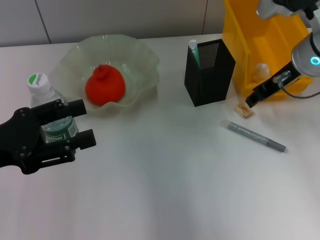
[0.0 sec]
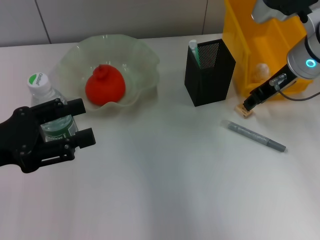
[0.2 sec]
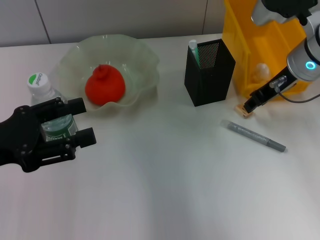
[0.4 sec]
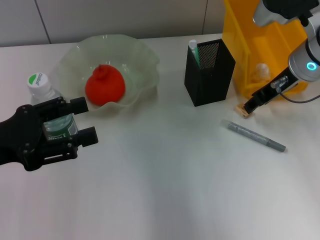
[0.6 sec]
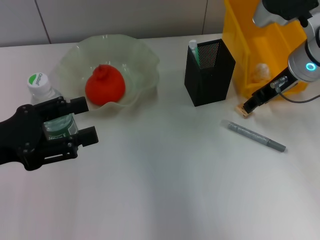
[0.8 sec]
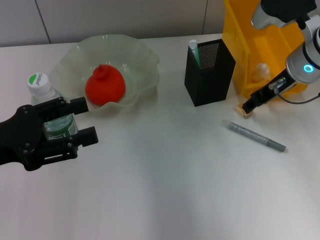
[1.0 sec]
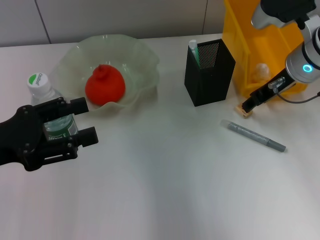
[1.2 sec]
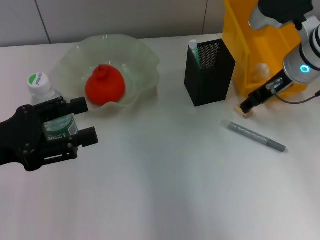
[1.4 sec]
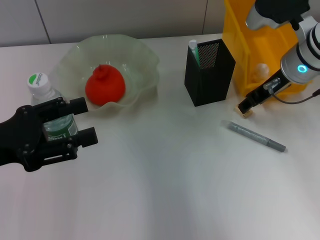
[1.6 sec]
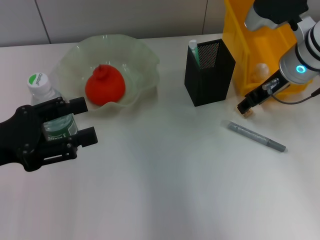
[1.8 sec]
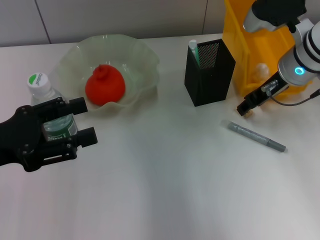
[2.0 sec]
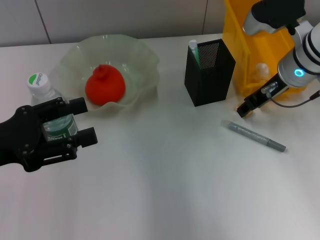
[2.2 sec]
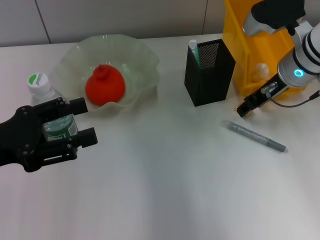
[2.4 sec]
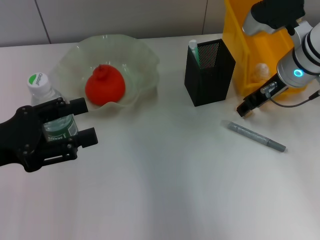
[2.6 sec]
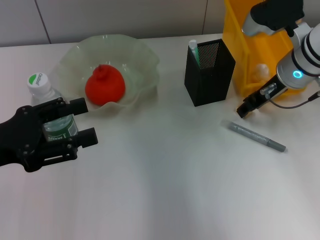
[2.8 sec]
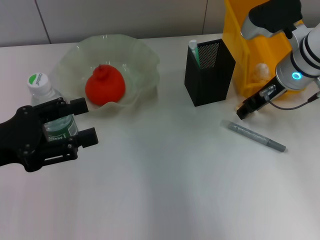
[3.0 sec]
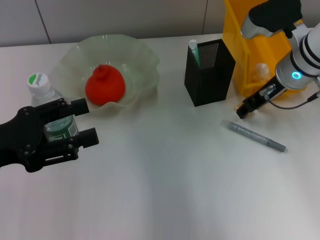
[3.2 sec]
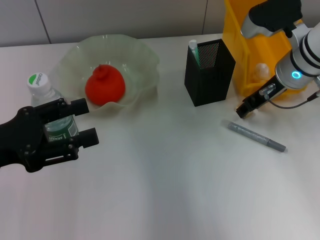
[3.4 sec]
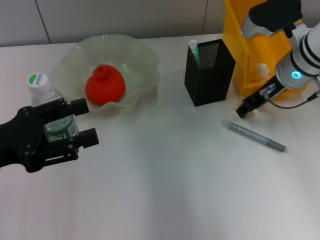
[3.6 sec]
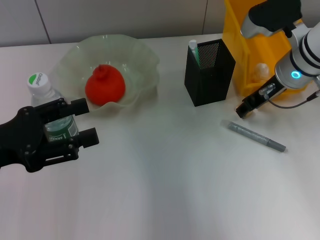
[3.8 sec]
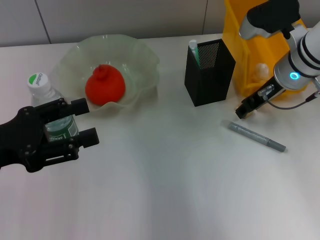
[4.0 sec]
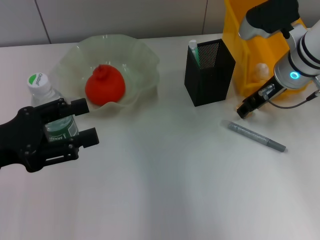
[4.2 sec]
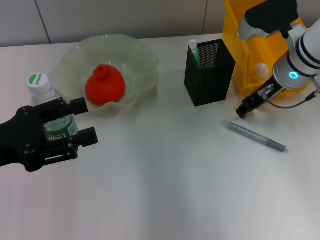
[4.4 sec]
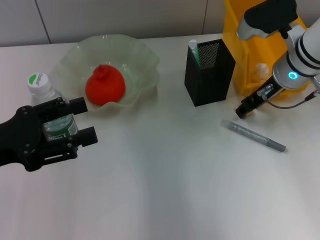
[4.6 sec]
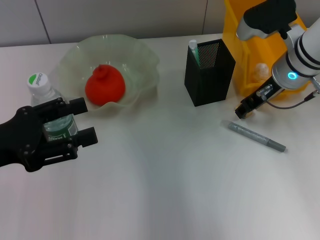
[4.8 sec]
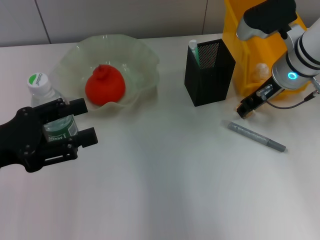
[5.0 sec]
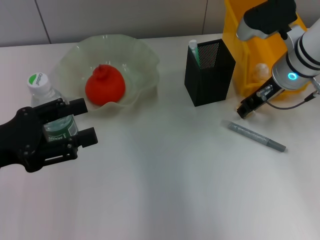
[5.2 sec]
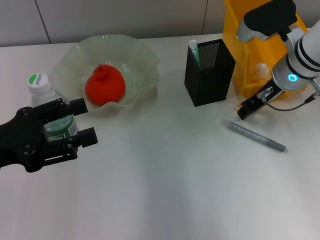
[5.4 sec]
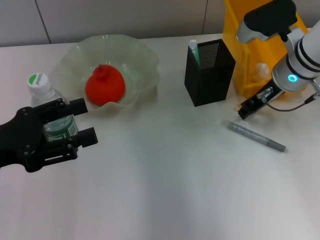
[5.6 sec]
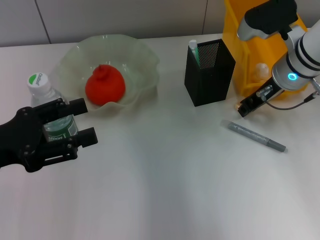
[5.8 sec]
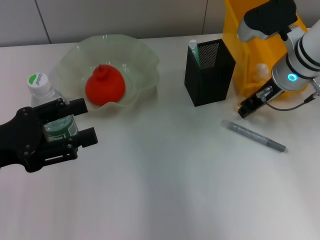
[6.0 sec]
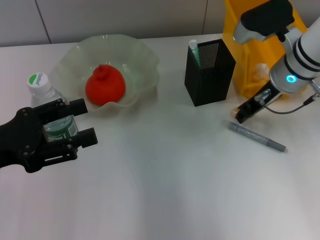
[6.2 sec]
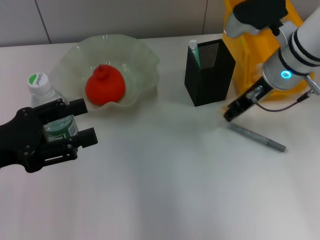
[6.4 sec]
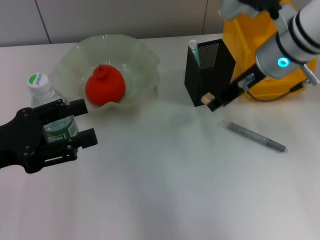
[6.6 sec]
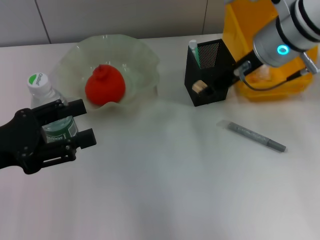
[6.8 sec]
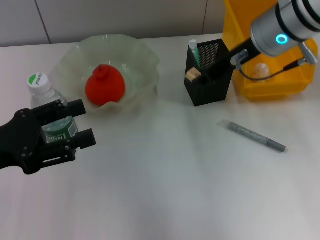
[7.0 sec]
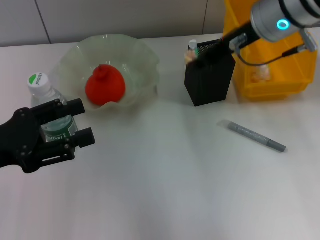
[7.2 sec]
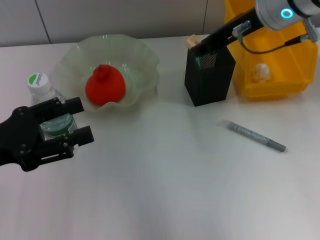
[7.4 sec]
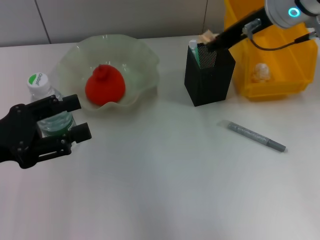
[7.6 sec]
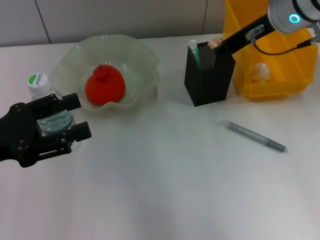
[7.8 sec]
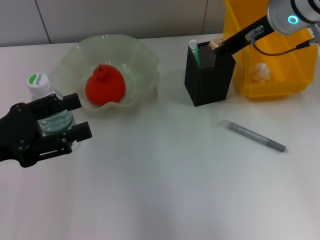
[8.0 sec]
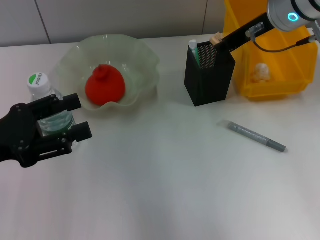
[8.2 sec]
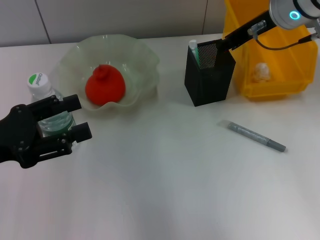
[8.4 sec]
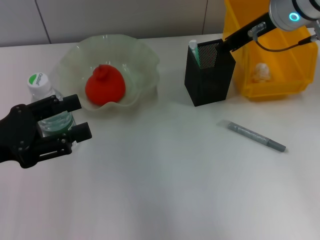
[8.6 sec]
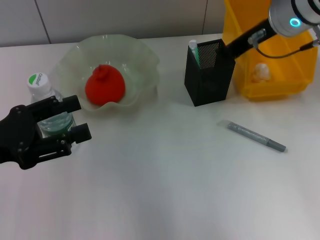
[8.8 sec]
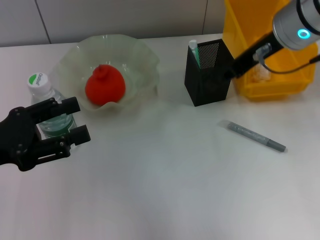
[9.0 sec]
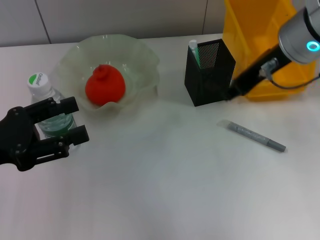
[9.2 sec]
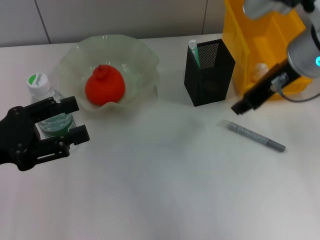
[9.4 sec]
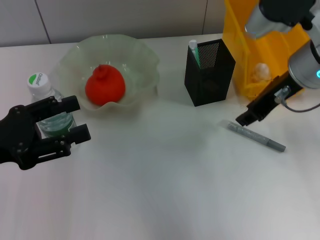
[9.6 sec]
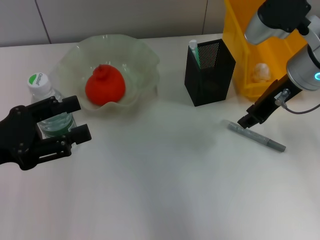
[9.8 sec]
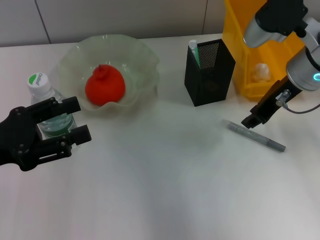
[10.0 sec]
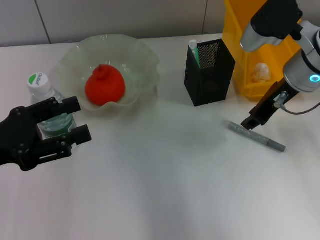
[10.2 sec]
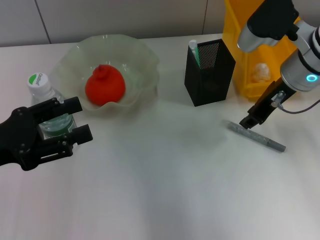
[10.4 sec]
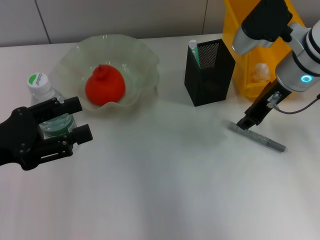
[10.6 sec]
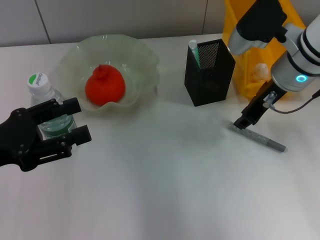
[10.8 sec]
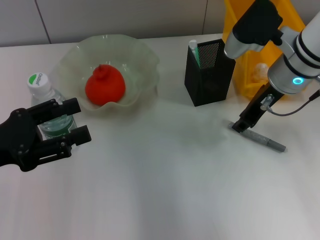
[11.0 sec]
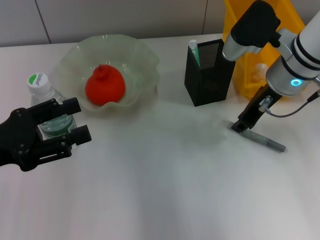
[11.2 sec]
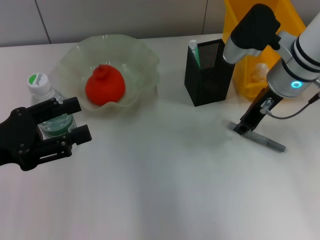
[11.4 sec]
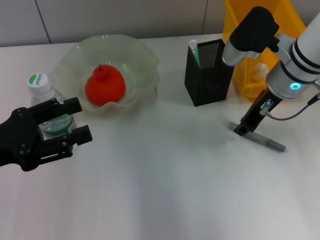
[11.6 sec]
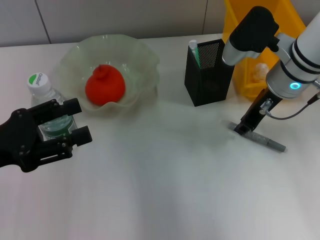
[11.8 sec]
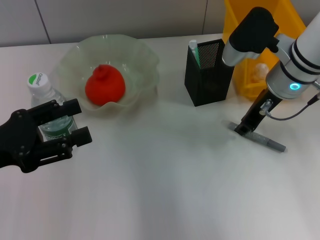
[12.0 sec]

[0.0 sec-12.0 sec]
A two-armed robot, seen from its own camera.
Step, 0.0 sec to 5.8 sec: Grab the eraser with the right hand.
Step, 6.2 sec to 8.6 sec: Put the eraser into the pen holder with the right hand.
0.0 sec to 3.0 sec: The grippers stay close to where they were, moving slightly.
3.0 sec to 4.4 sec: Both grippers stay about where they are.
4.4 sec to 6.0 sec: The right gripper closes.
6.0 sec to 7.6 sec: The right gripper travels upward by approximately 10 cm.
7.6 sec to 9.0 sec: There are only small adjustments of the grippers.
9.0 sec to 10.4 sec: The right gripper moves downward, some 5 cm.
10.4 sec to 12.0 sec: The grippers make only small movements.

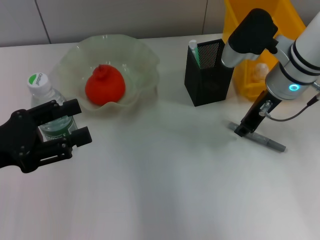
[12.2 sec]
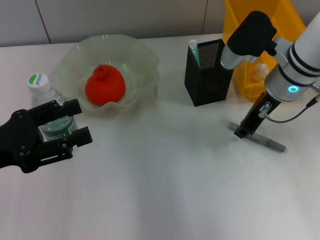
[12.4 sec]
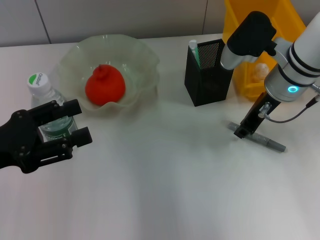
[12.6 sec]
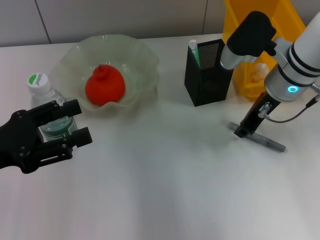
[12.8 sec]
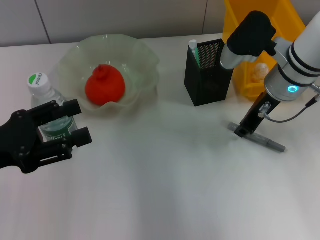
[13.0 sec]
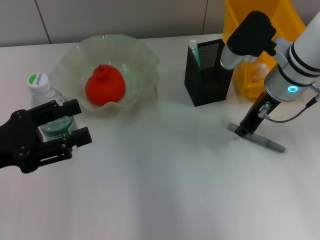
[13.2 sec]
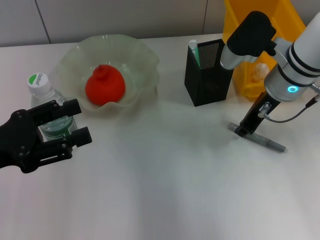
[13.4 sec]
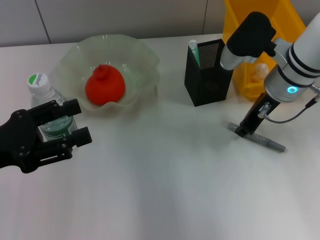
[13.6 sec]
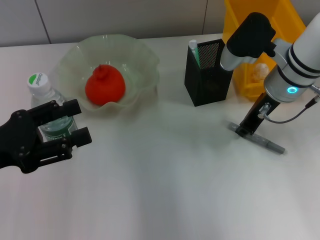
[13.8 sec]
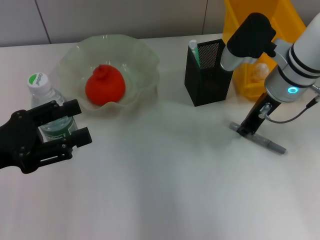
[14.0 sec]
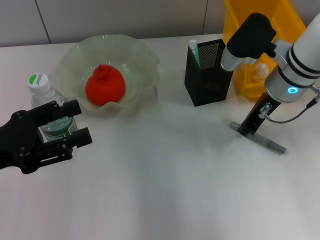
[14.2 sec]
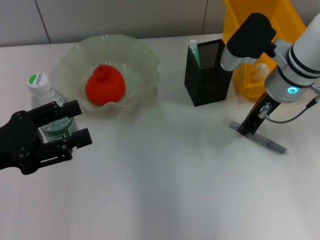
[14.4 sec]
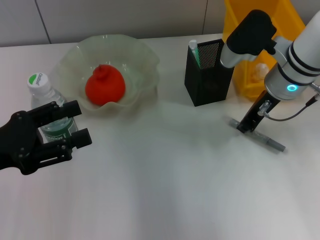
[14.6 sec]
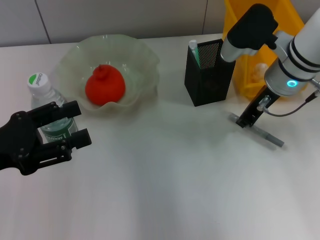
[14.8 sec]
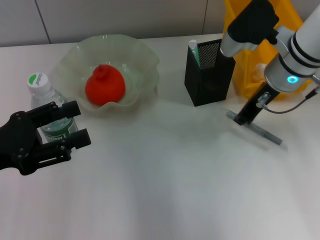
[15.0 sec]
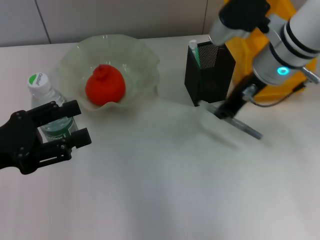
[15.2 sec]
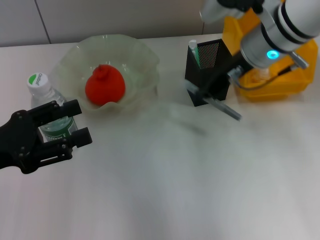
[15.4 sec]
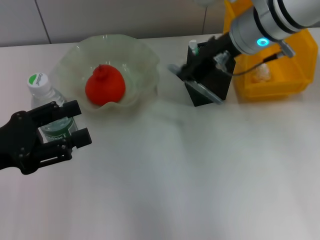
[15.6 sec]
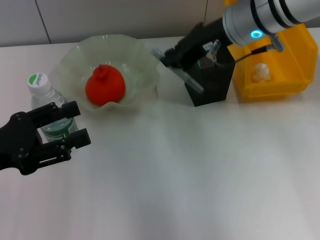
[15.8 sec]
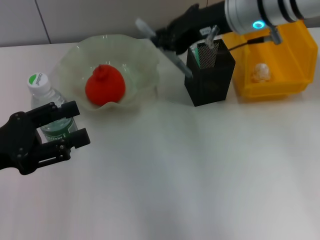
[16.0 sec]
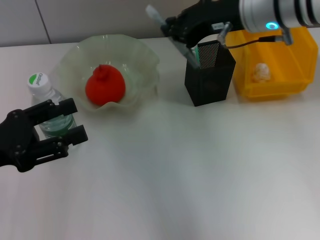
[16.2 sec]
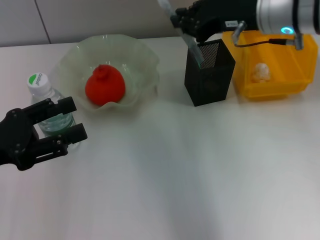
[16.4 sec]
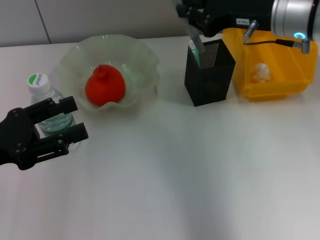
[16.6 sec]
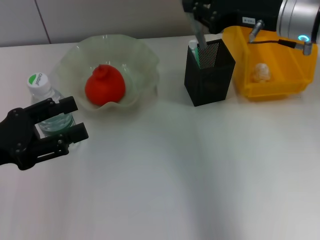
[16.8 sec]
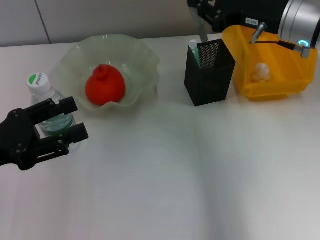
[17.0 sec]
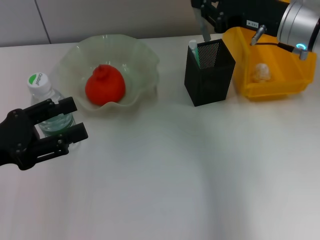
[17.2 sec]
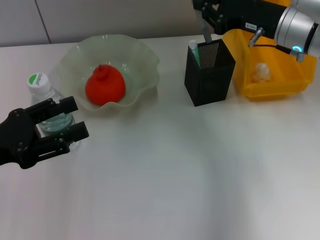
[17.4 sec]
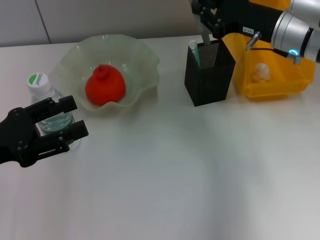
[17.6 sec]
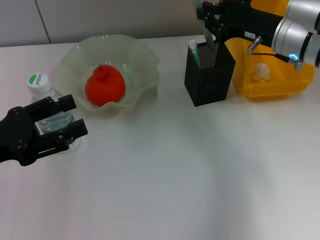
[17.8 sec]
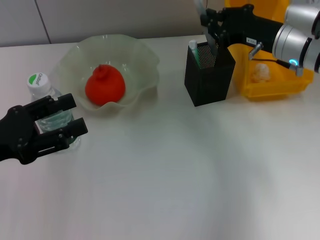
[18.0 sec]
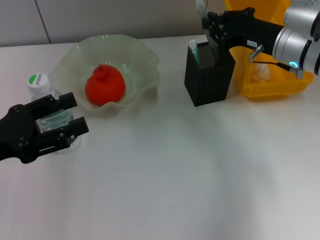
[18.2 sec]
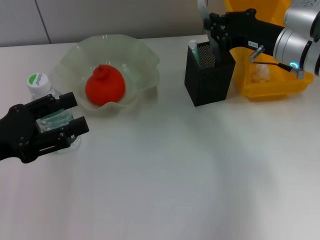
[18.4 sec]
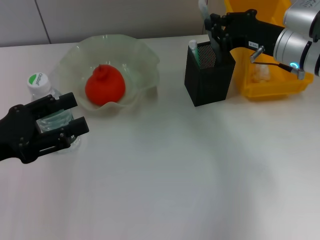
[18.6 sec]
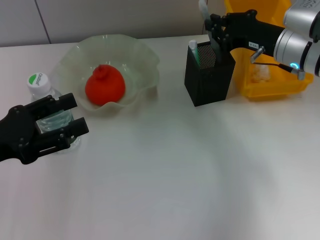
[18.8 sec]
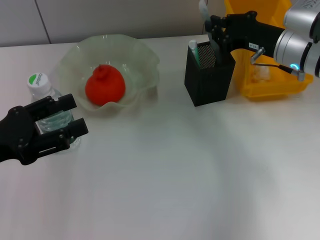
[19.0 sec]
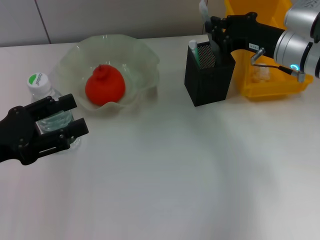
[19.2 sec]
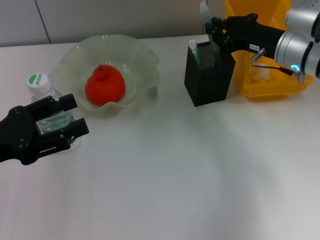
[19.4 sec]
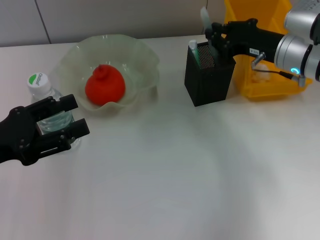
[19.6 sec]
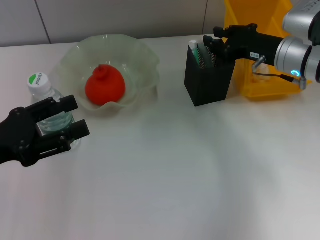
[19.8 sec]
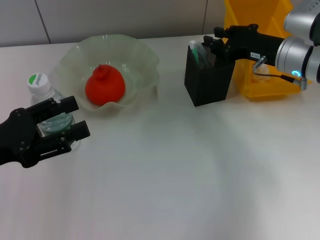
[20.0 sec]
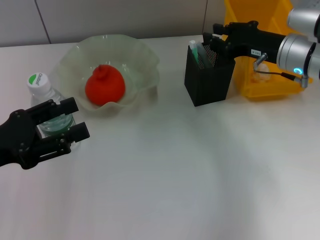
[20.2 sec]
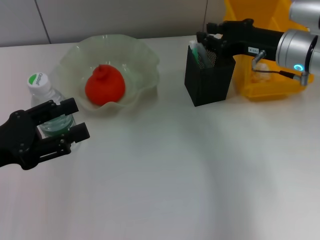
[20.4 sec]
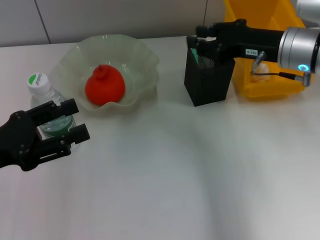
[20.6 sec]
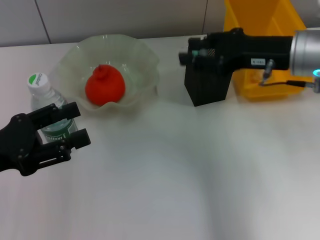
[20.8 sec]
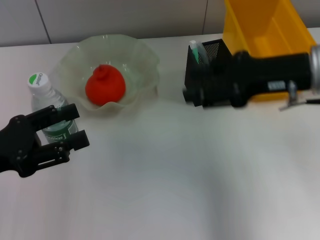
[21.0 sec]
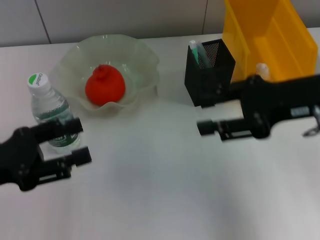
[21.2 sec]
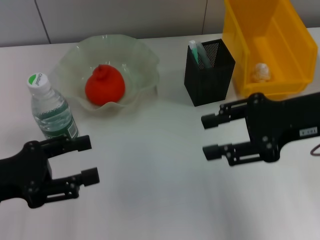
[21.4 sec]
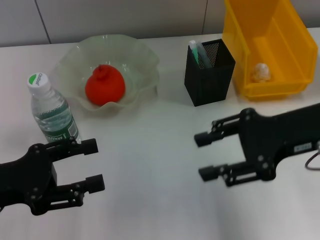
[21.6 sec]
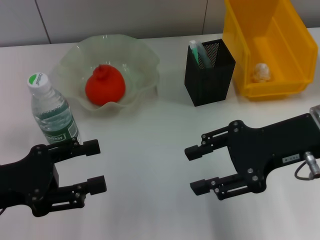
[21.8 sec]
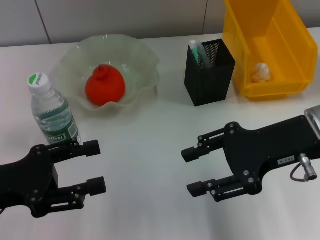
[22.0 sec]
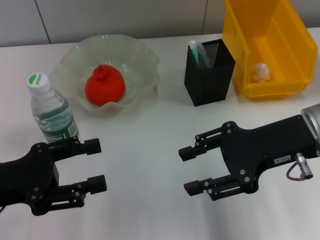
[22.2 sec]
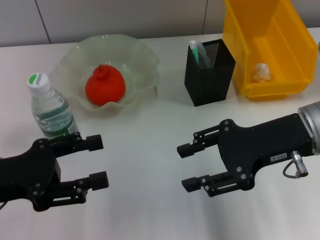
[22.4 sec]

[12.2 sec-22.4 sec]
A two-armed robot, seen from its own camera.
Step, 12.2 sec to 14.2 sec: Grab the gray glue with the right hand.
Step, 14.4 sec to 19.8 sec: Place the gray glue into the pen holder with the right hand.
12.2 sec to 13.6 sec: The two grippers keep their place.
13.6 sec to 15.2 sec: The grippers stay close to where they were, moving slightly.
16.6 sec to 18.0 sec: The right gripper goes roughly 10 cm downward.
18.0 sec to 19.4 sec: The two grippers keep their place.
19.4 sec to 21.0 sec: The right gripper goes some 10 cm backward and upward, and opens up.
21.0 sec to 22.4 sec: The right gripper ends up about 5 cm from where it was.
